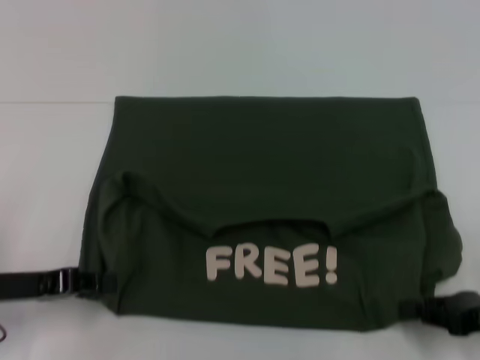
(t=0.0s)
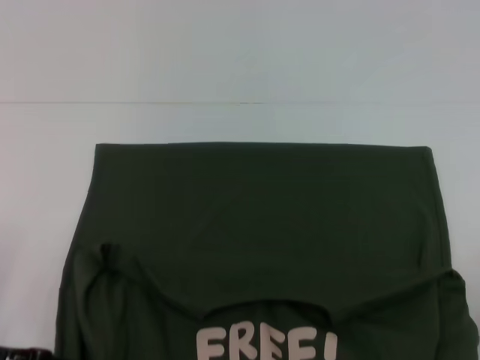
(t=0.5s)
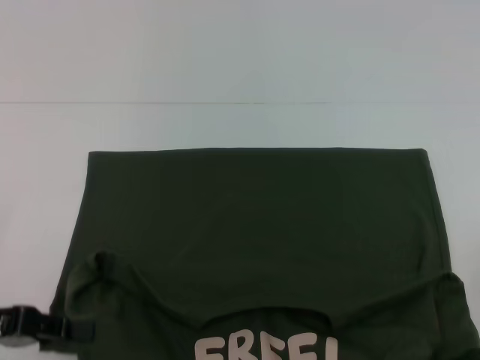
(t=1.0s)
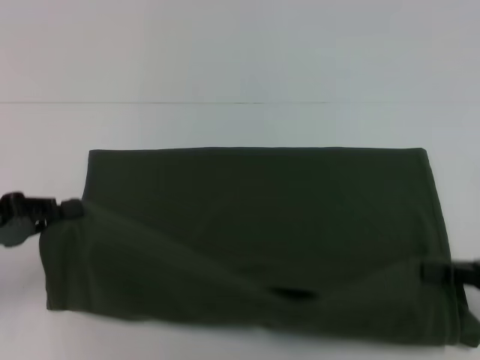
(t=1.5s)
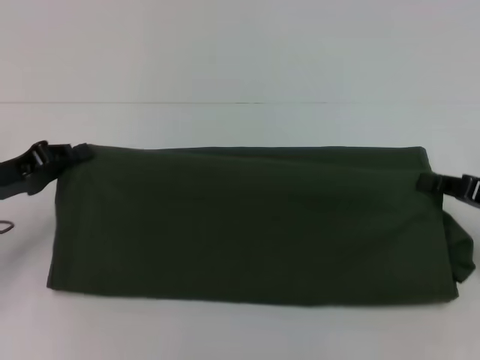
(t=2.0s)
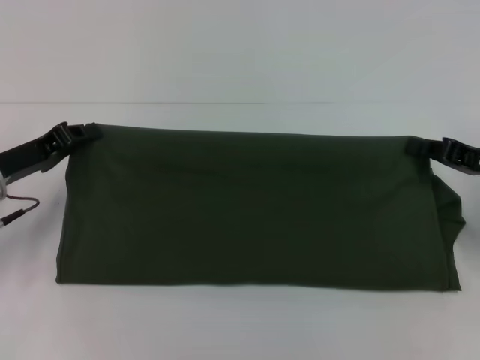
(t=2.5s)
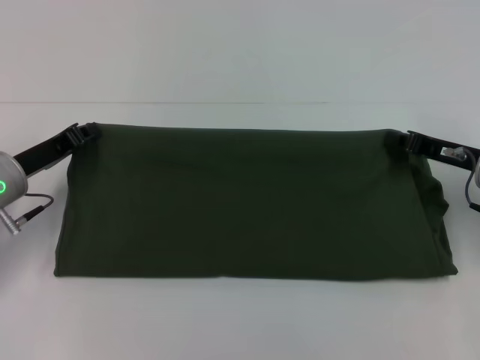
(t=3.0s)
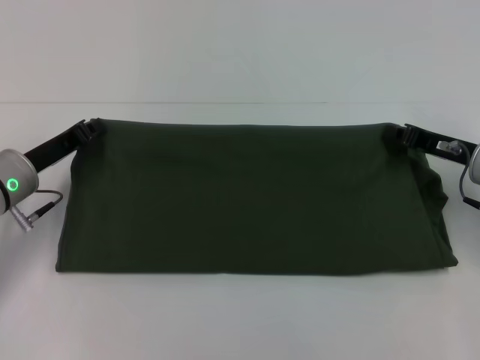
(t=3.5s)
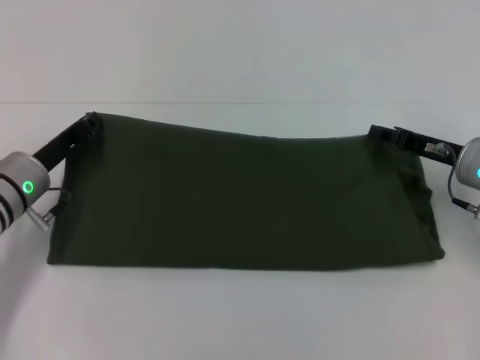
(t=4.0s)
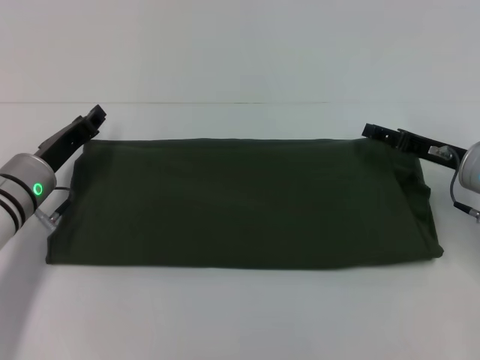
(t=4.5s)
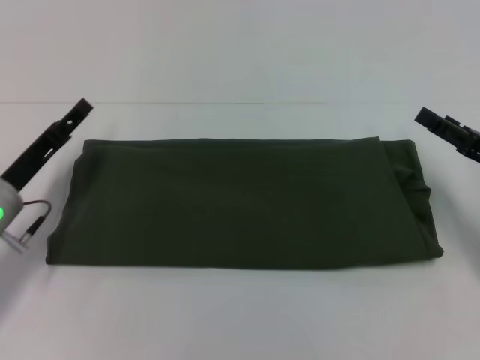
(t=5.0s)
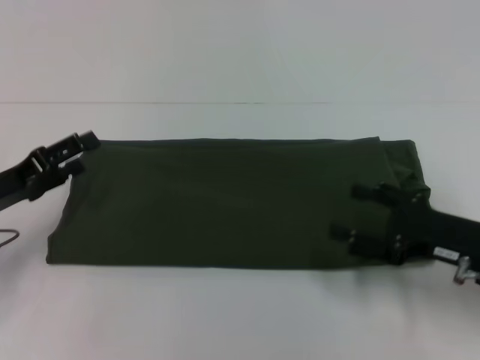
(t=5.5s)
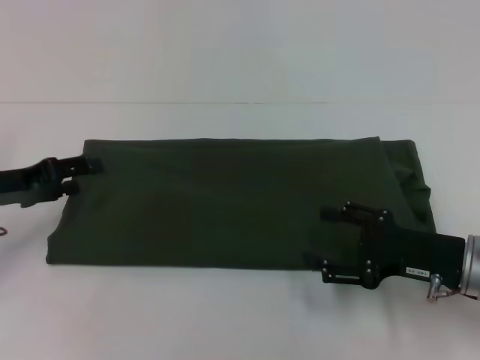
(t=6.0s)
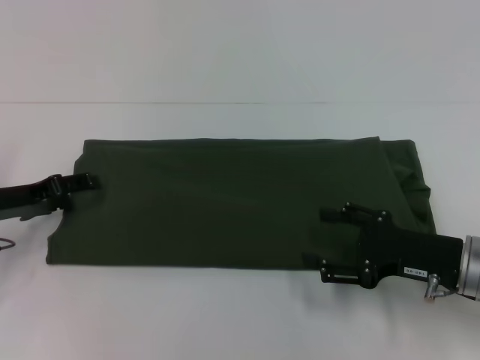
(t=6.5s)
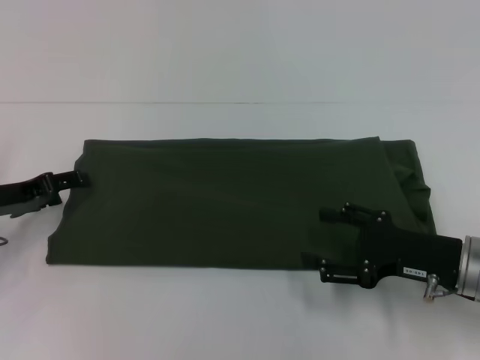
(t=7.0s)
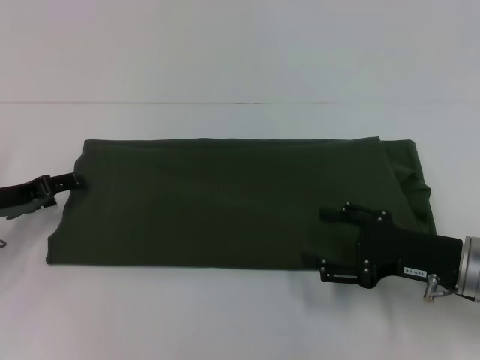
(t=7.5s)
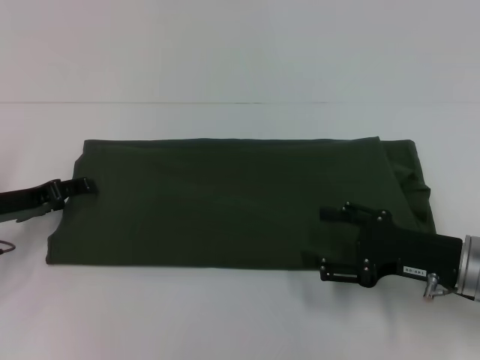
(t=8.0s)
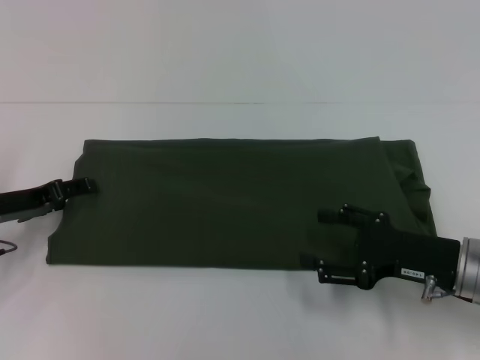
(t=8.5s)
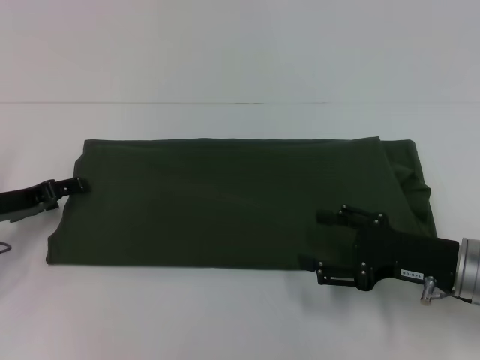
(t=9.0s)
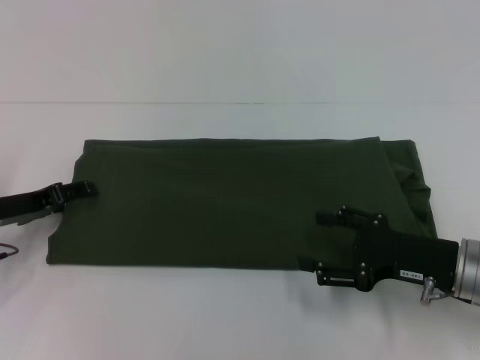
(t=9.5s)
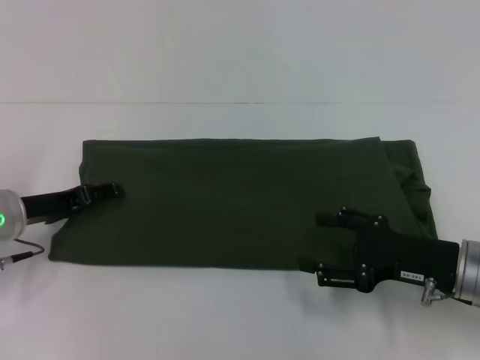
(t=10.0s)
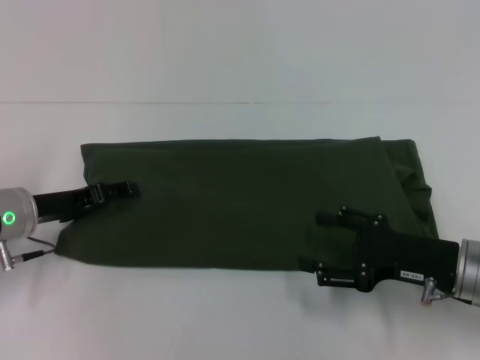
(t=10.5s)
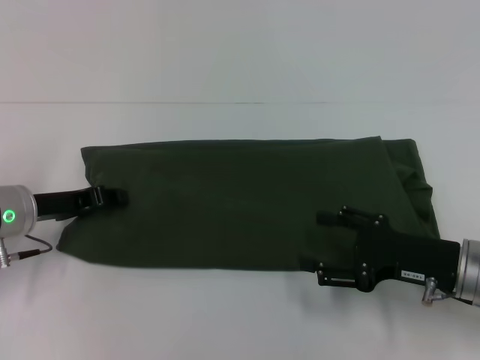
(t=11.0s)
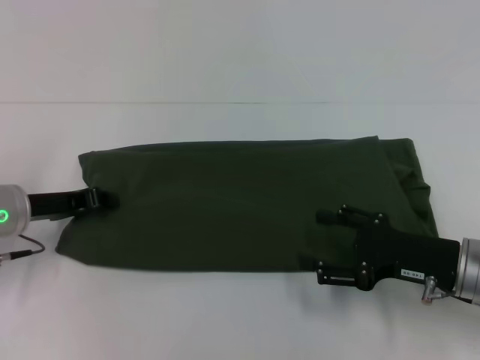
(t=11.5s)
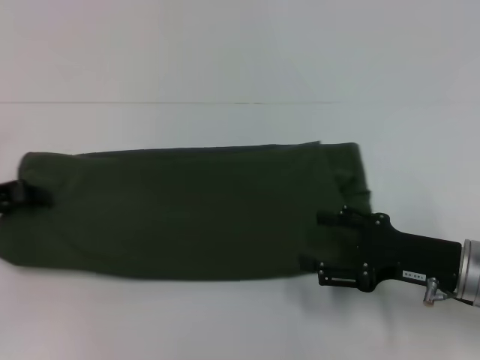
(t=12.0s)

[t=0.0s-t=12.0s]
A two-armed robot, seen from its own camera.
Step, t=1.0s to t=4.0s: Fold the clothes with your right hand.
t=0.0s to t=2.0s: The right gripper travels forward by approximately 5 cm. Meanwhile the left gripper changes place by about 5 cm.
t=2.0s to t=4.0s: The right gripper shifts approximately 10 cm forward and to the left; the left gripper shifts approximately 5 cm to the right.
t=4.0s to t=6.0s: The right gripper moves backward, approximately 10 cm, and opens its fingers; the left gripper goes roughly 5 cm to the left, and opens its fingers.
t=6.0s to t=10.0s: The grippers make only small movements.
t=10.0s to t=12.0s: The left gripper is displaced to the left by about 5 cm, and closes its fingers.

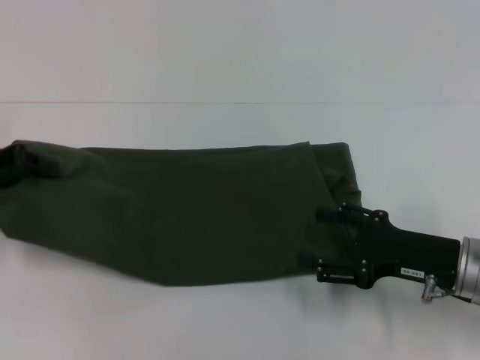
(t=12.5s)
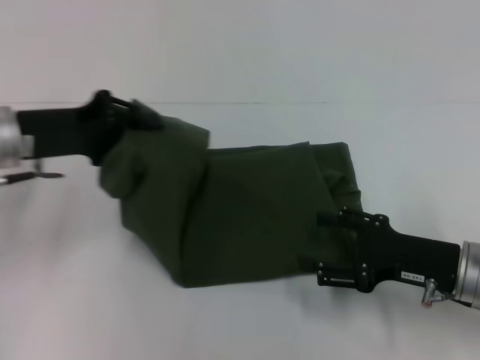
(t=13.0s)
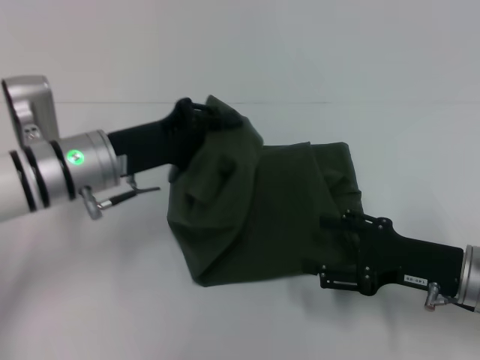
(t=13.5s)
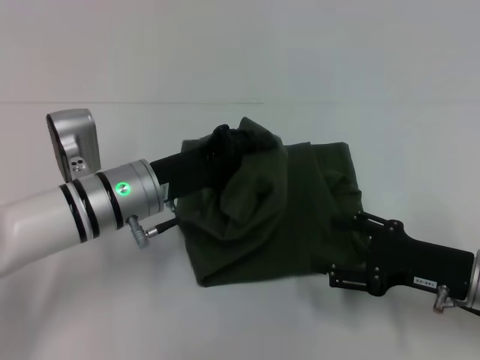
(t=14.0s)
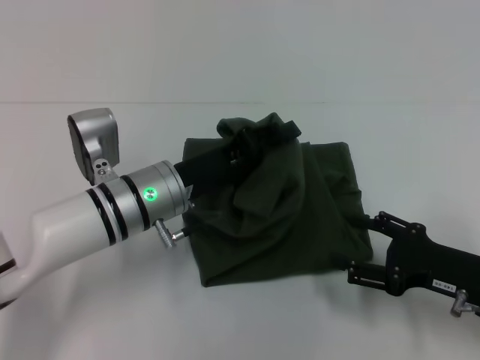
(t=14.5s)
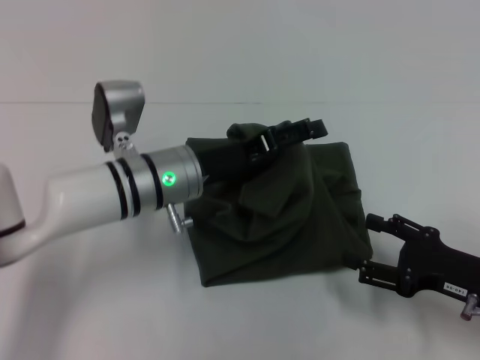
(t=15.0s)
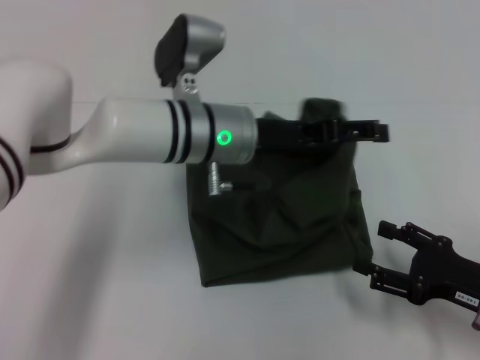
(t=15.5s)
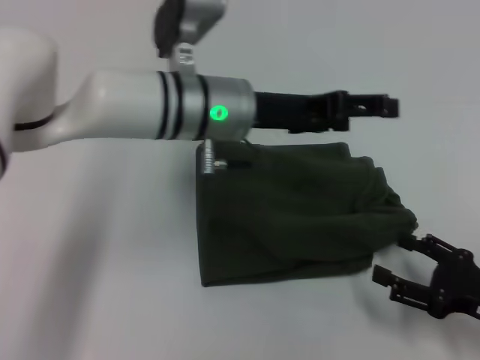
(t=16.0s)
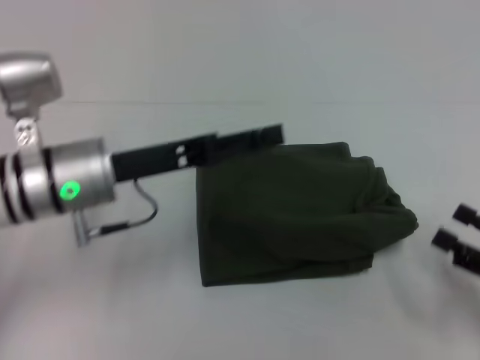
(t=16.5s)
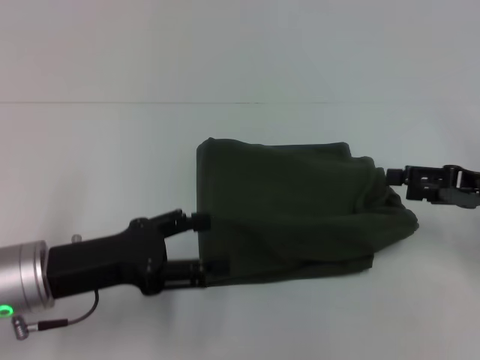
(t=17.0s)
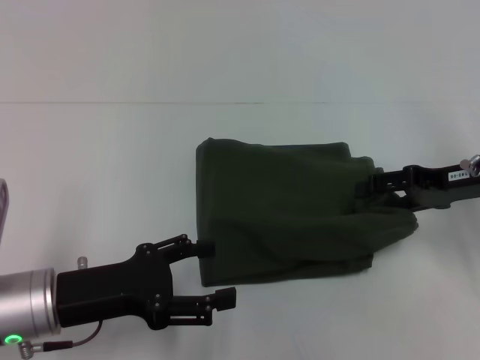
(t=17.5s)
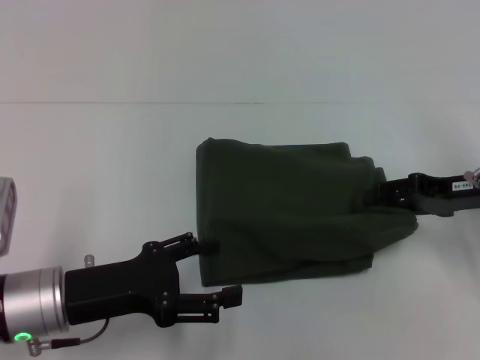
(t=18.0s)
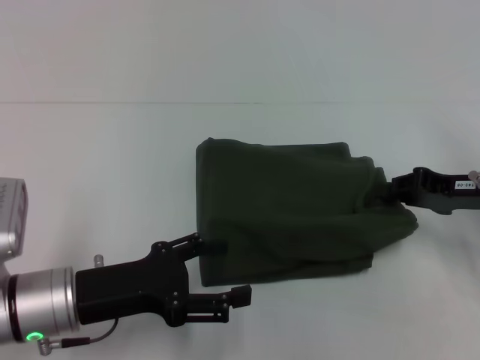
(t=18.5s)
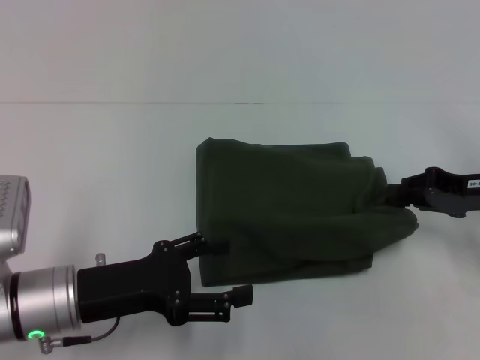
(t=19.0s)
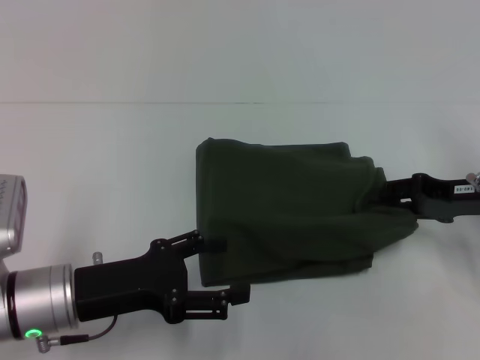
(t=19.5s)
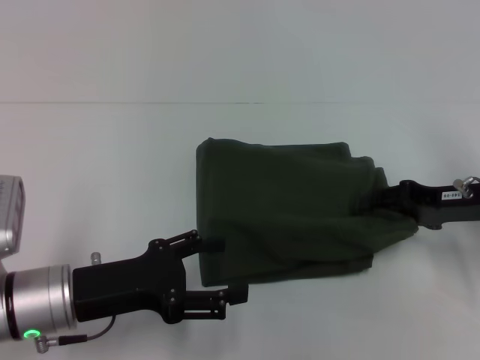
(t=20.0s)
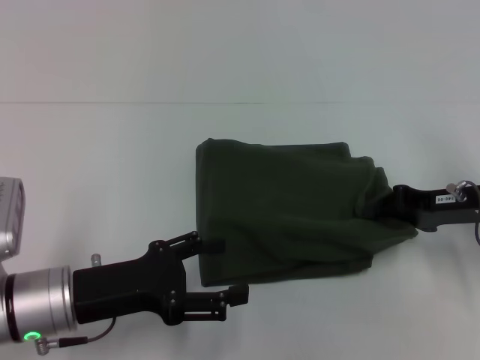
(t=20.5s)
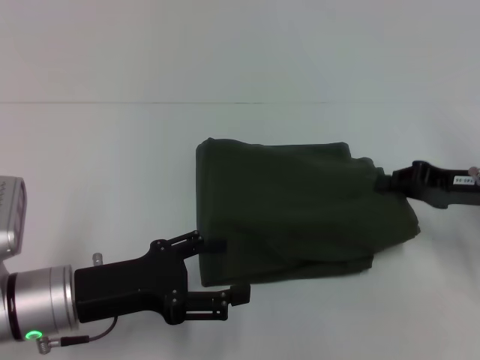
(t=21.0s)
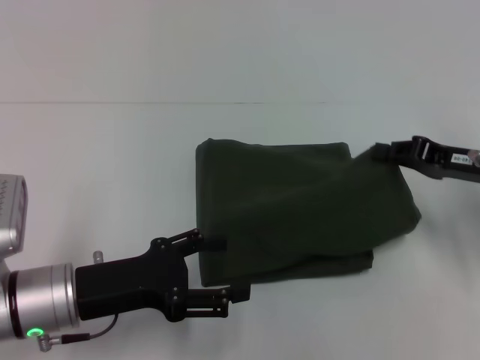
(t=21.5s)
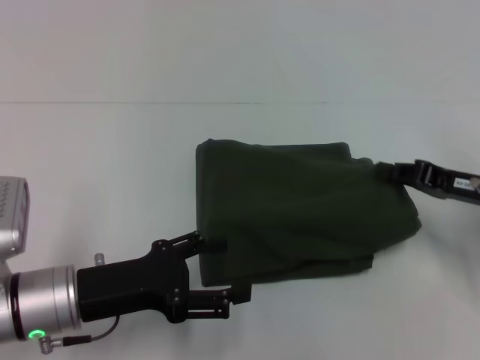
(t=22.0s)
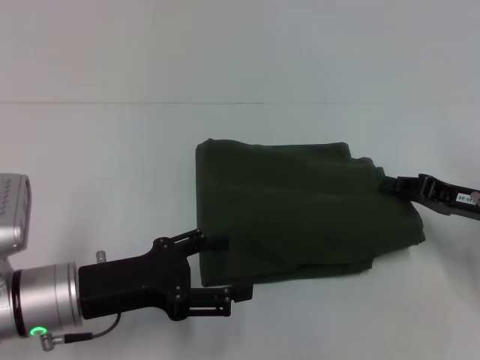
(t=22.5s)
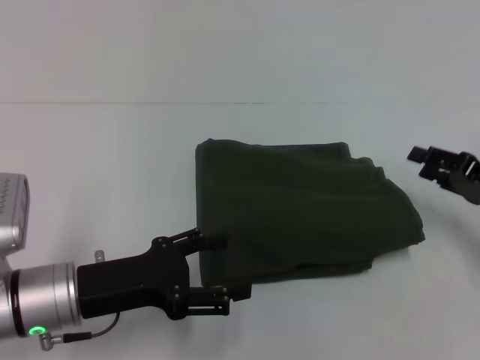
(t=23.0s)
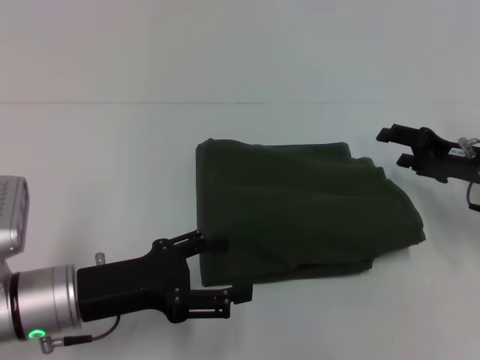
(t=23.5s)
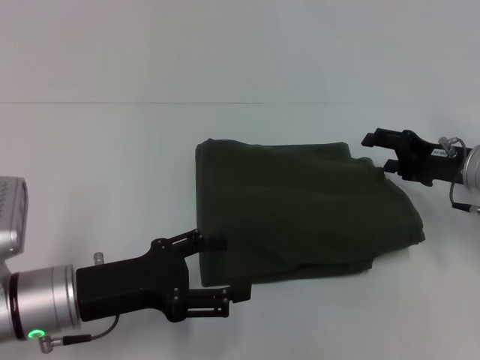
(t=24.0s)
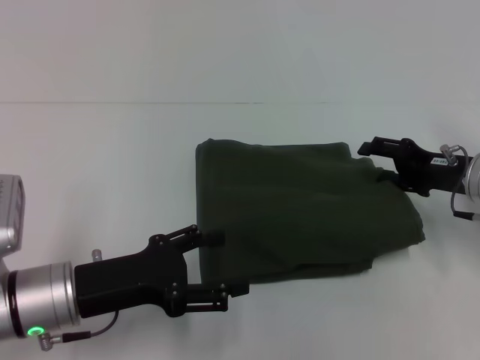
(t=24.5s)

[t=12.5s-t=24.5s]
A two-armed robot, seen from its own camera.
Step, t=12.5s to t=15.5s: Fold the clothes with your left hand.
t=12.5s to t=14.5s: The left gripper shifts about 25 cm to the right.
t=14.5s to t=16.5s: The left gripper moves upward and to the left, approximately 10 cm, and opens its fingers; the right gripper travels to the right and backward by about 10 cm.
t=16.5s to t=18.5s: The right gripper shifts some 15 cm forward, and closes up. Meanwhile the left gripper heads backward and downward, covering about 10 cm.
t=18.5s to t=20.5s: The grippers move only a little.
t=22.5s to t=24.5s: The right gripper moves forward, roughly 5 cm, and opens its fingers.

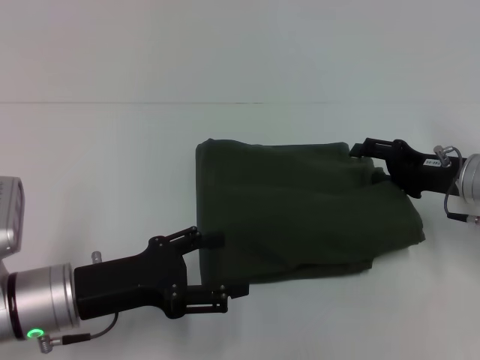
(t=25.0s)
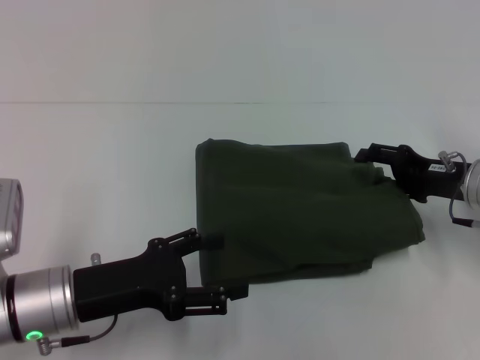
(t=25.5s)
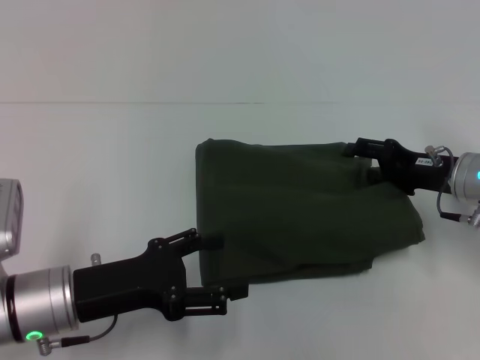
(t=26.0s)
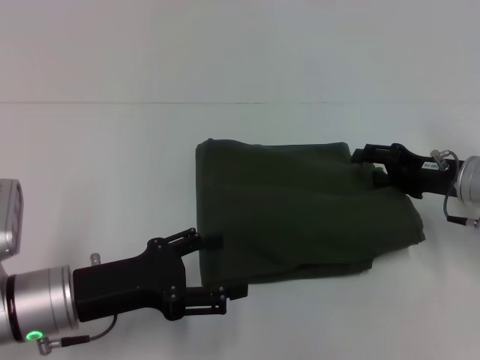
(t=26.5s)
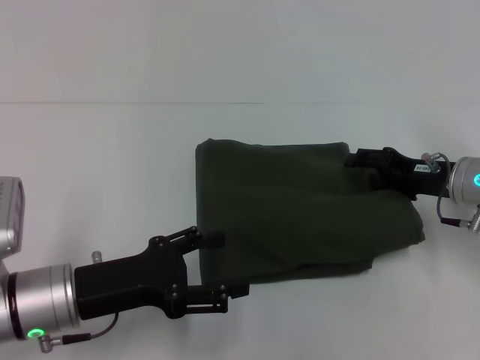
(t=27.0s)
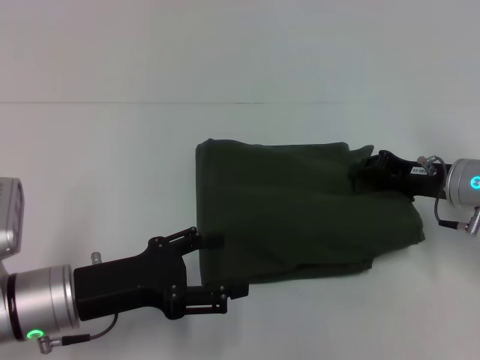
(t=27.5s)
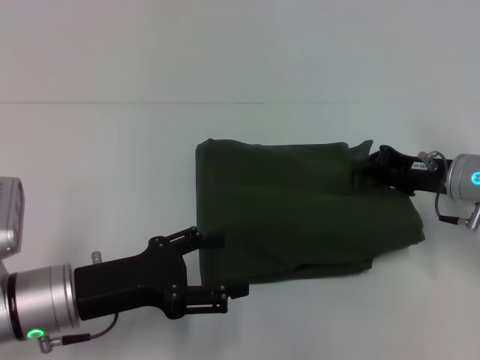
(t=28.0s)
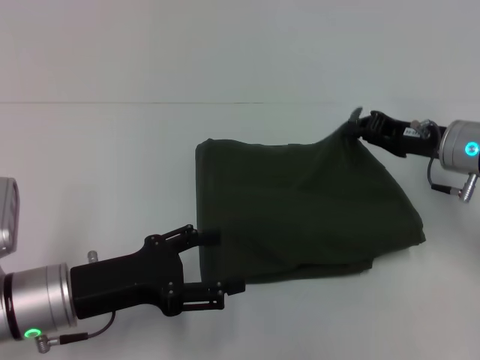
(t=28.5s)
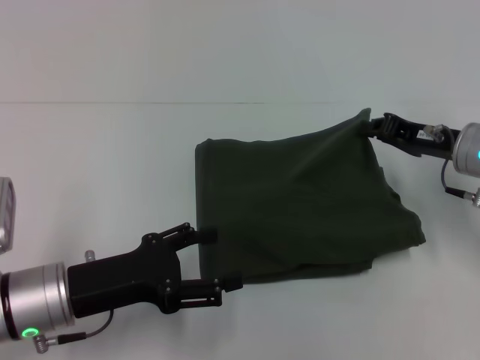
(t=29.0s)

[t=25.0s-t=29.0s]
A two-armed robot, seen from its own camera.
t=25.0s to t=27.0s: The grippers move only a little.
t=27.0s to t=29.0s: The right gripper closes up.
